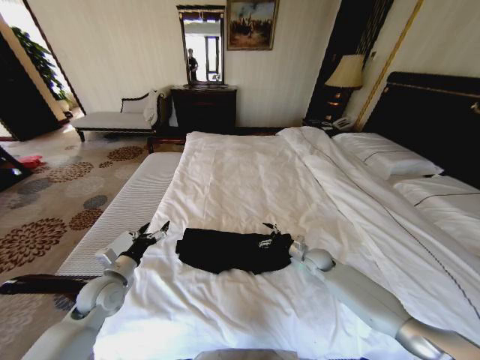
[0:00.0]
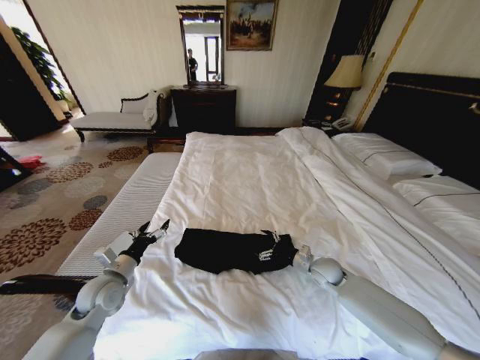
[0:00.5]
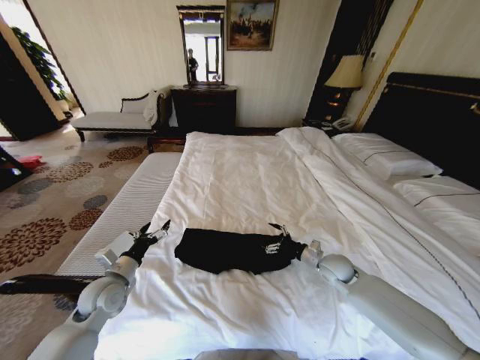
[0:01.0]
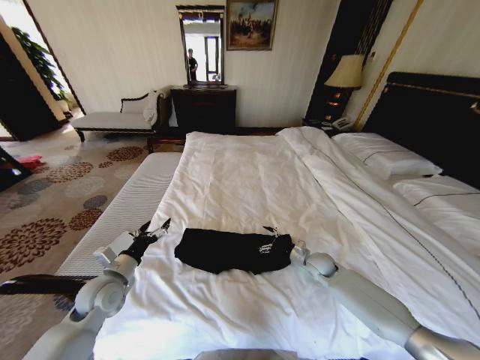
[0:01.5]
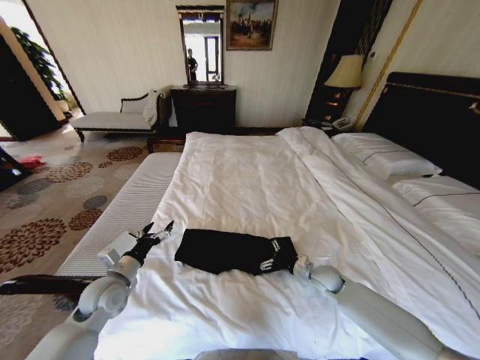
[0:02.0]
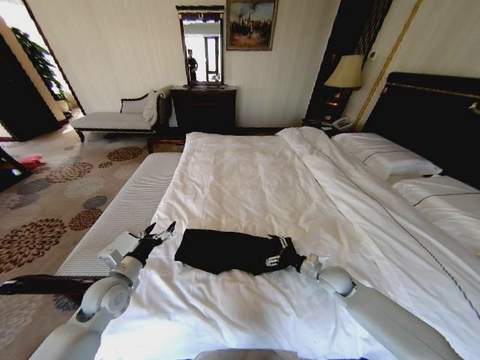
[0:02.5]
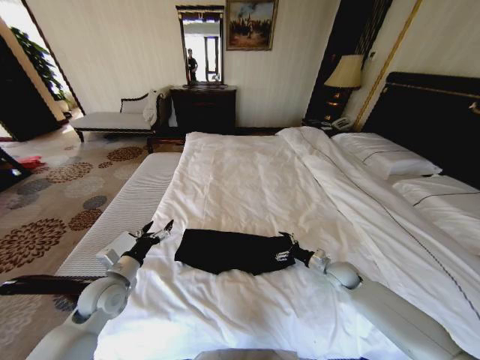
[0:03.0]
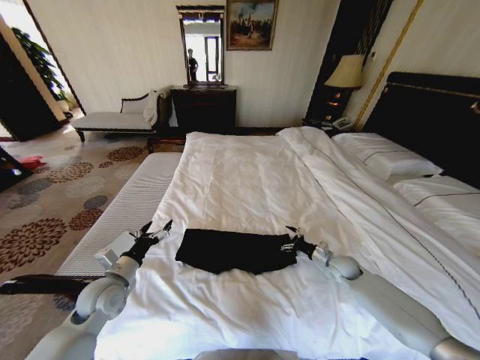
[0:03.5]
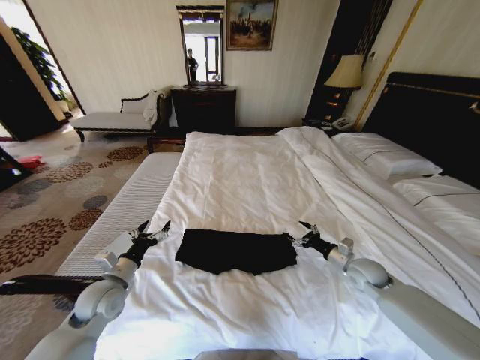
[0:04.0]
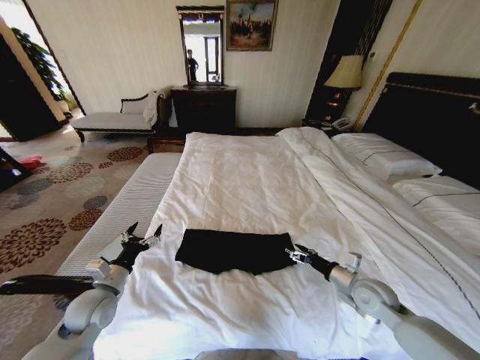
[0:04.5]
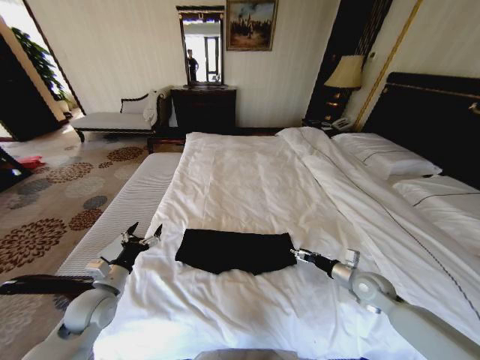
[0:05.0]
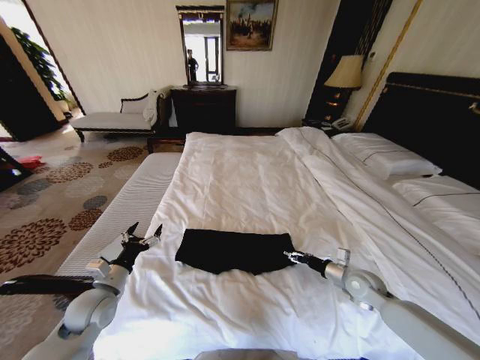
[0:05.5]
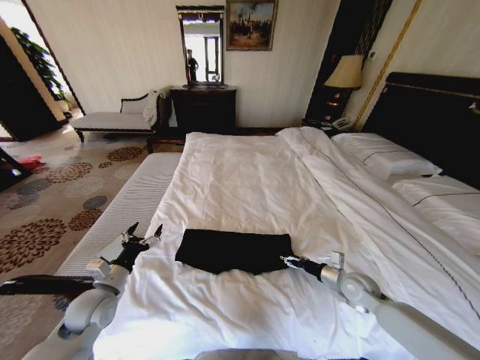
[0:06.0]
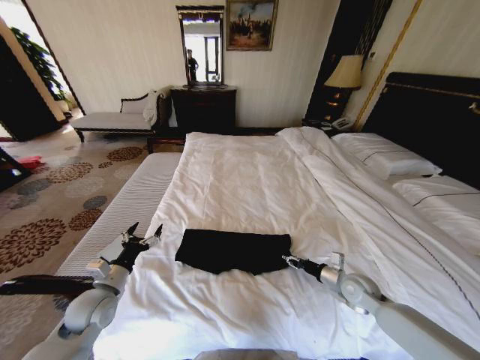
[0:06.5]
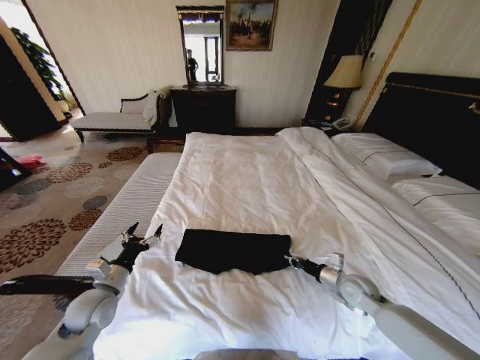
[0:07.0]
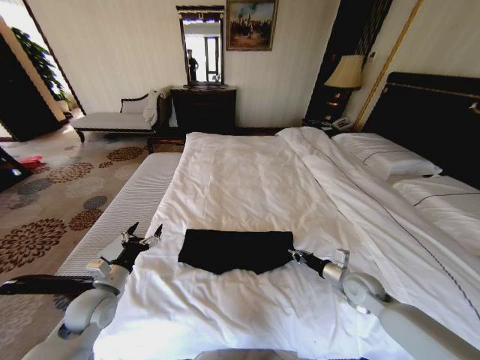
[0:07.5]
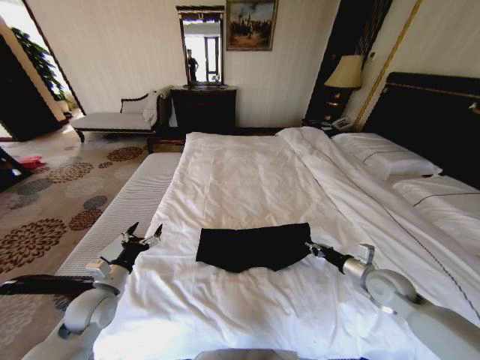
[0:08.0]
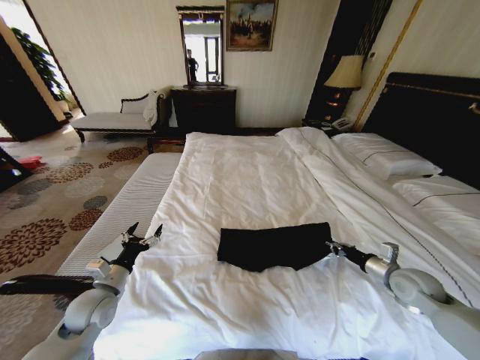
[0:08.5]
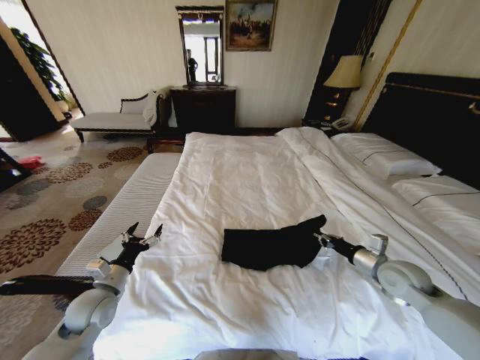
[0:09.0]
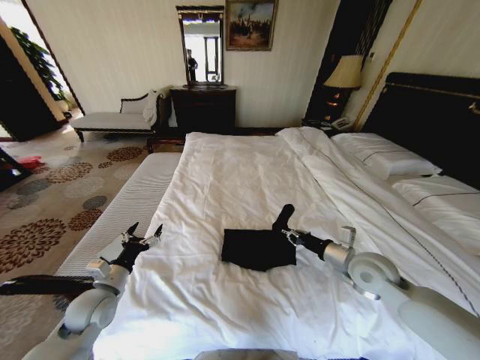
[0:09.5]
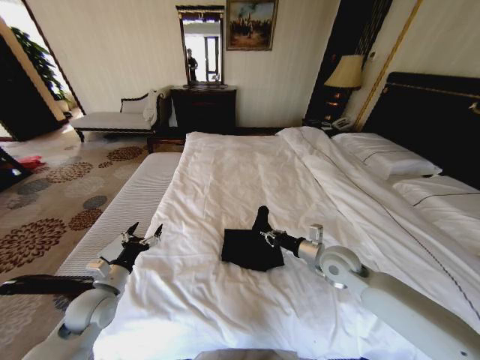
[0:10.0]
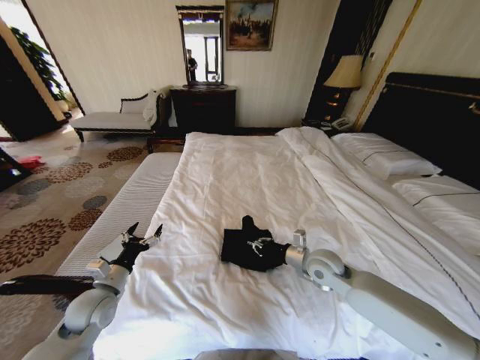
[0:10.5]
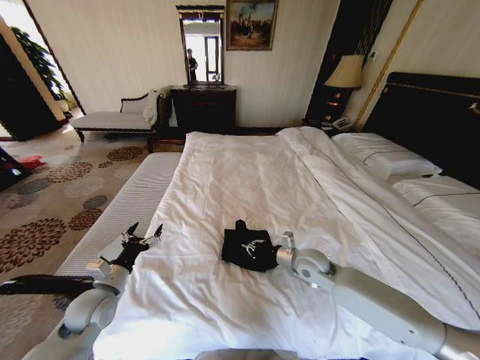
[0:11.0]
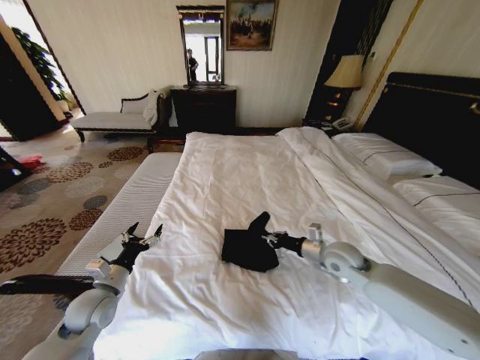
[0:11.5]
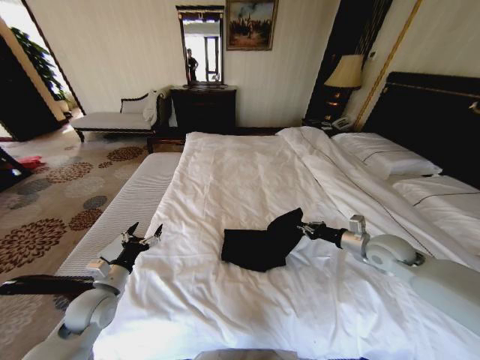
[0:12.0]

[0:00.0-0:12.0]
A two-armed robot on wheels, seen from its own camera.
Task of the whole recording: Fold the clothes on the bed.
0:00.0 to 0:02.0: The right gripper moves forward and backward over roughly 5 cm, changing direction 2 times.
0:02.0 to 0:04.0: The right gripper moves to the right and upward, some 10 cm.
0:06.0 to 0:08.0: The right gripper is displaced upward by some 5 cm, and closes its fingers.
0:08.0 to 0:10.0: The right gripper travels to the left by roughly 15 cm.
0:10.0 to 0:12.0: The right gripper heads to the right, covering roughly 15 cm.

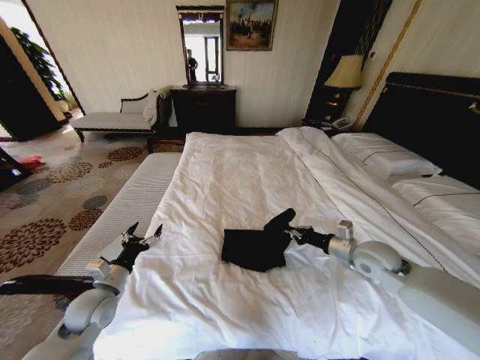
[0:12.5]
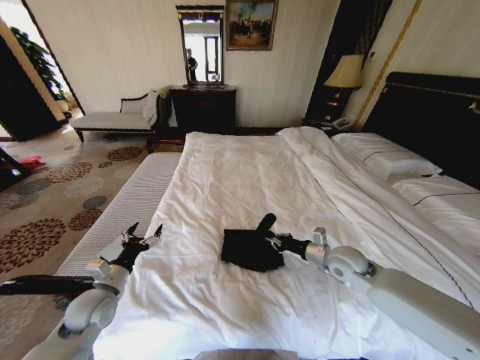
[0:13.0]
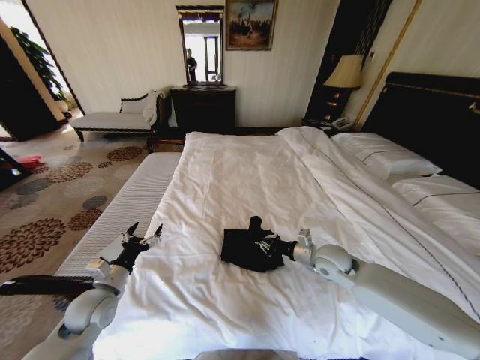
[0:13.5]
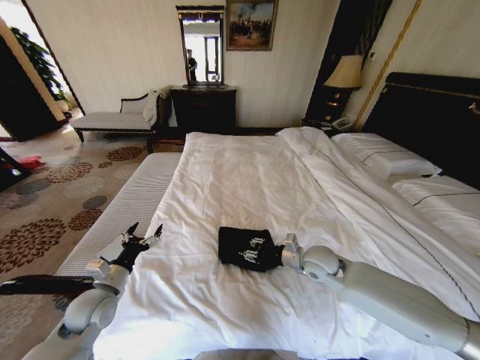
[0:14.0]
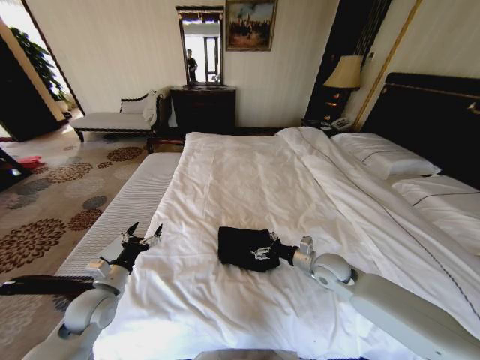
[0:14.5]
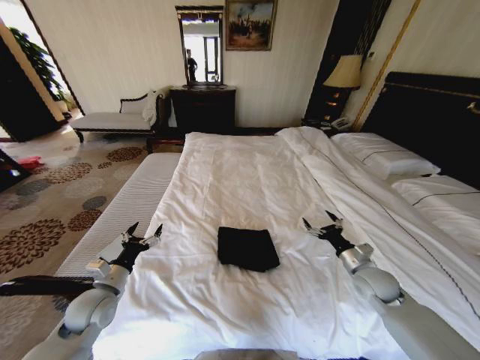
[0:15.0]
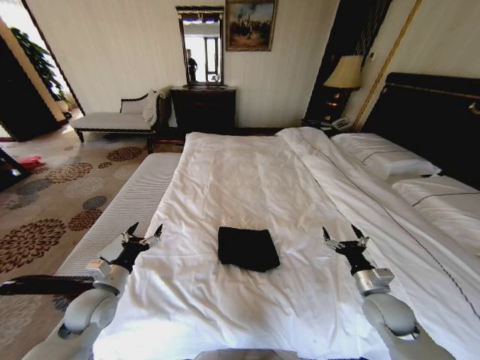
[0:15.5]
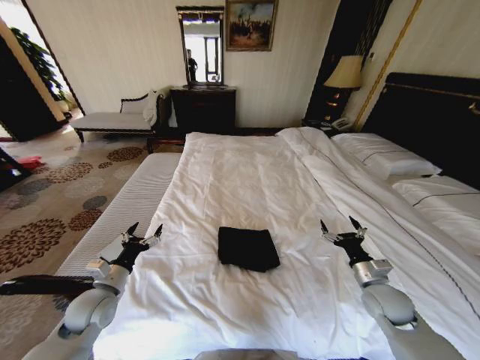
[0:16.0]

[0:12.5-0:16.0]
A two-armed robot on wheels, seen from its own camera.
Task of the whole recording: Fold the clothes on the bed.
0:12.5 to 0:14.5: The right gripper goes about 10 cm to the left and downward, and opens.
0:14.5 to 0:16.0: The right gripper shifts about 15 cm to the right and backward.

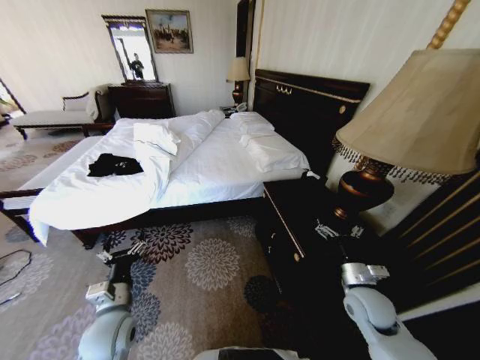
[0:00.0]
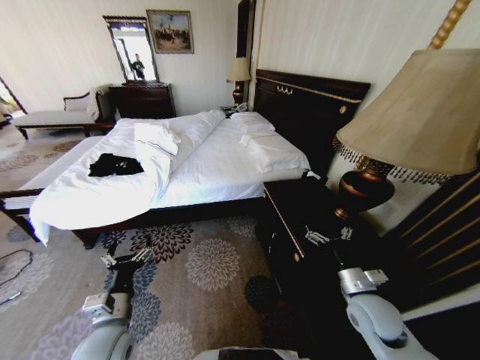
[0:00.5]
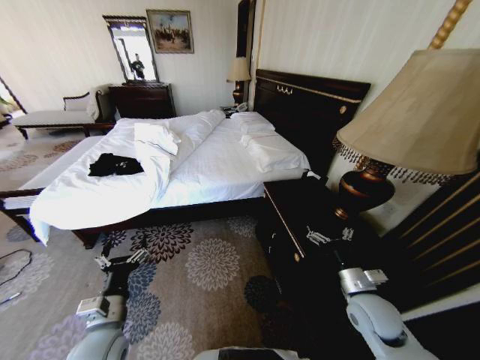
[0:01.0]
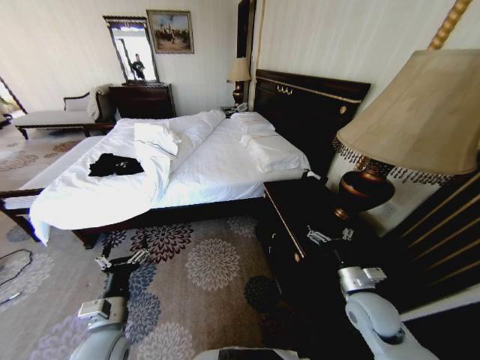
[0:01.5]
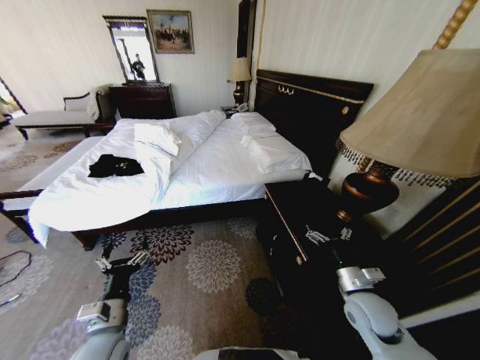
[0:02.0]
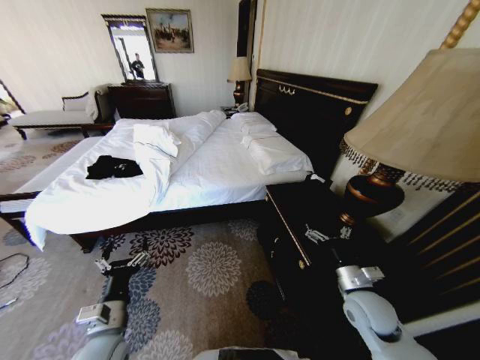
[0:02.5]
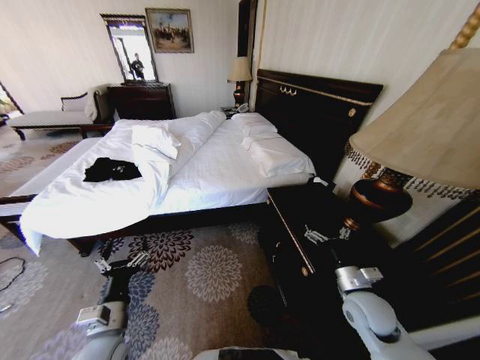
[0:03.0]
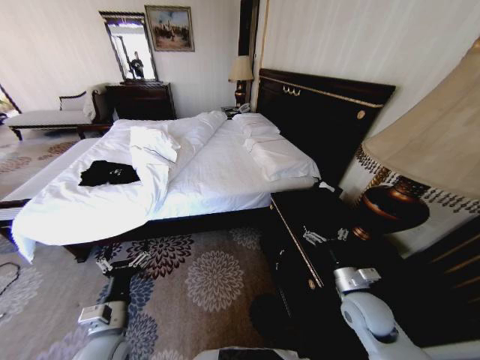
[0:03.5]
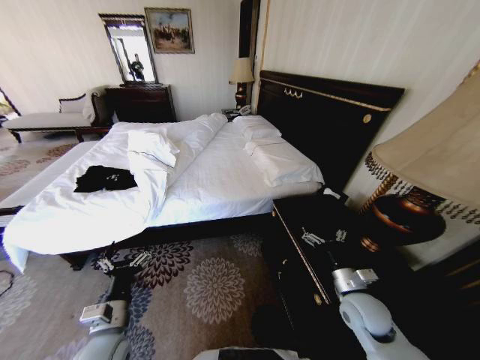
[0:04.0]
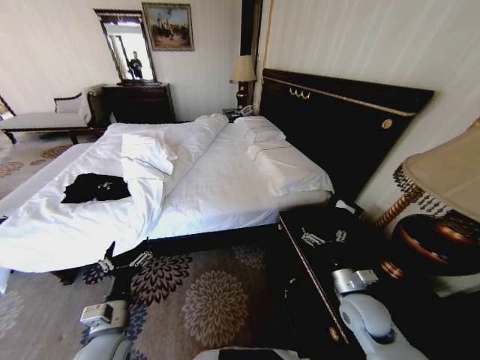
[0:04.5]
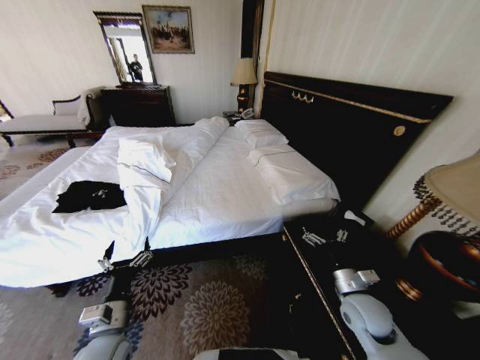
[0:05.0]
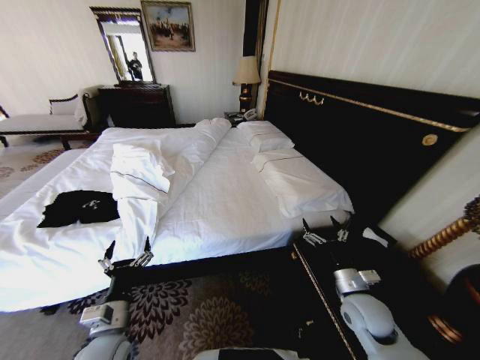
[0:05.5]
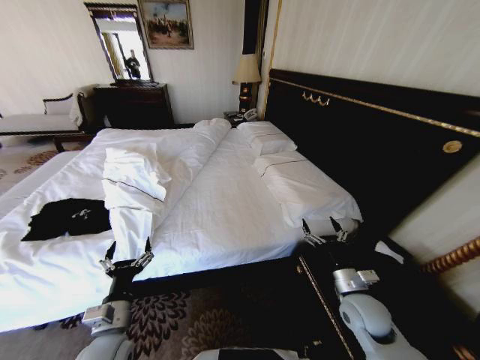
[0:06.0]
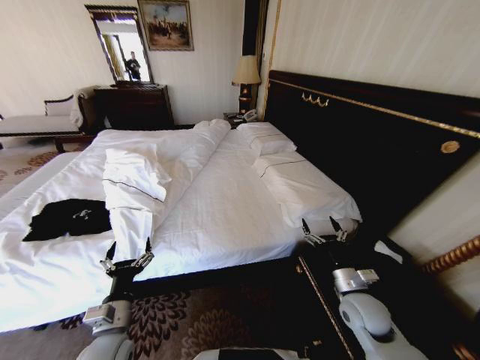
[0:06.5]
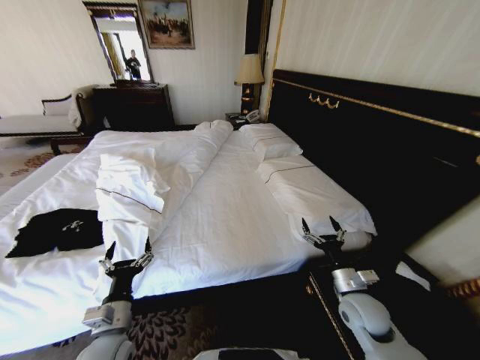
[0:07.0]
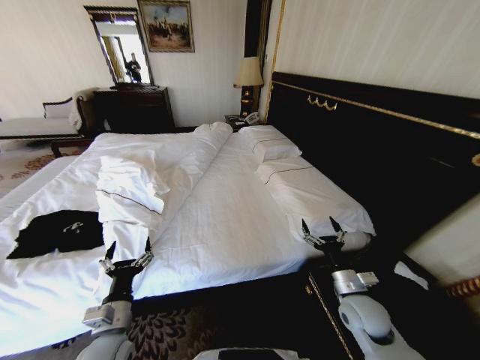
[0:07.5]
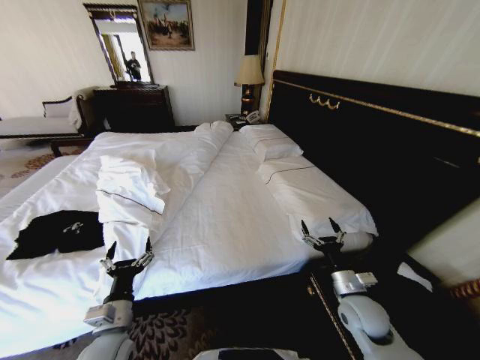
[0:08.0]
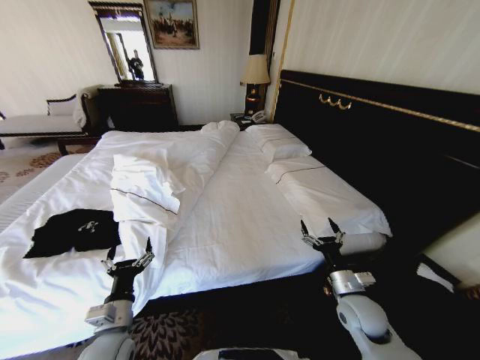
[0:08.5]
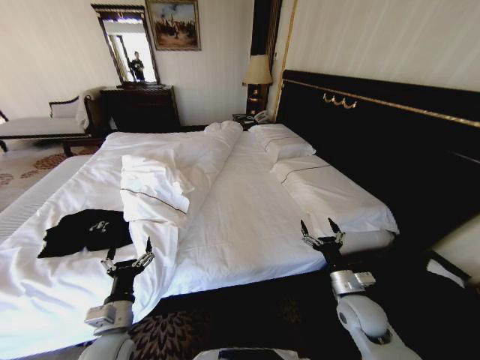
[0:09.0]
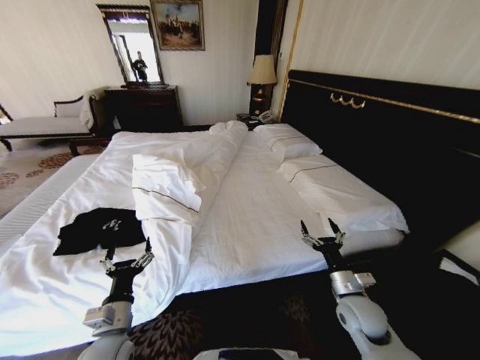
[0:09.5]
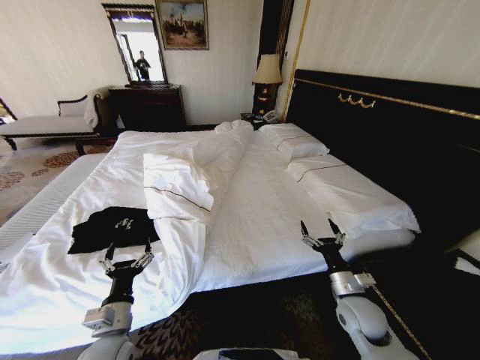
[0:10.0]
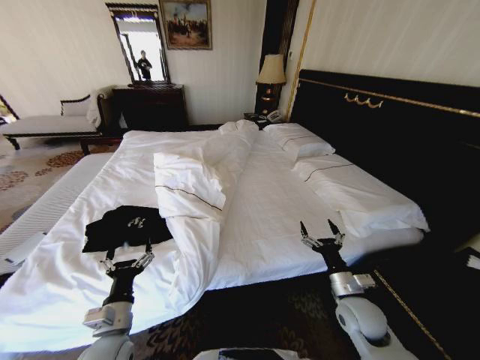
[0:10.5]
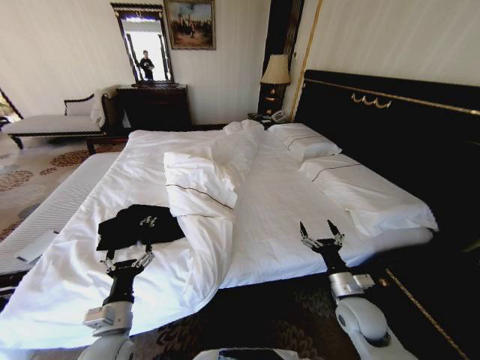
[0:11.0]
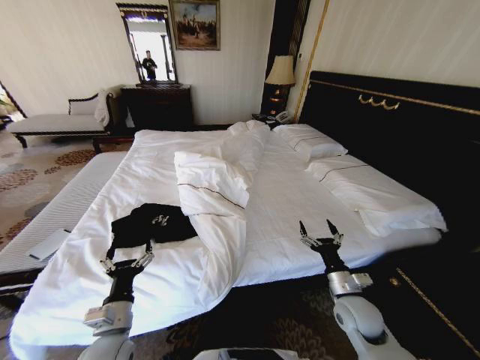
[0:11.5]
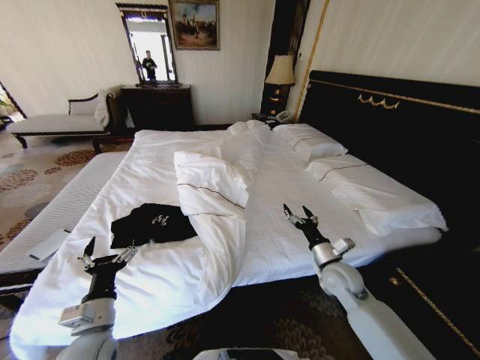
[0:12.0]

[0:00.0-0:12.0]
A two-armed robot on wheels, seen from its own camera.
Task of the whole recording: Fold the clothes on the bed.
0:10.0 to 0:12.0: The right gripper goes roughly 10 cm forward.
